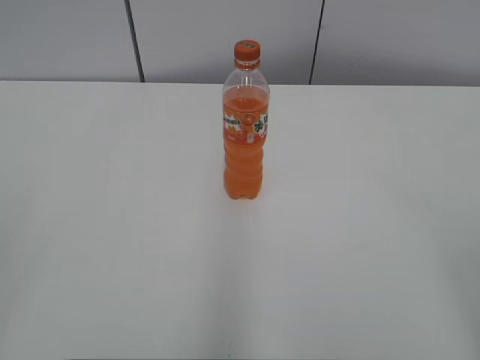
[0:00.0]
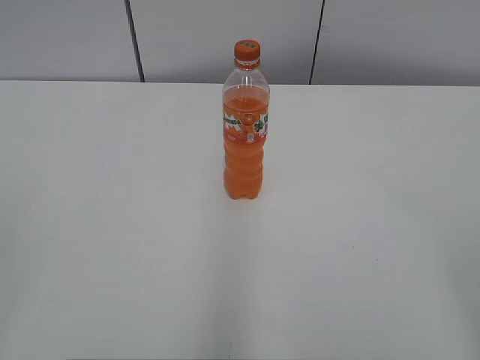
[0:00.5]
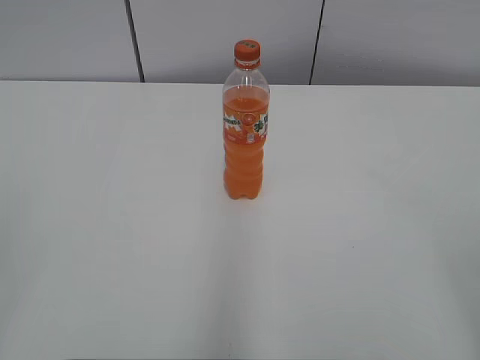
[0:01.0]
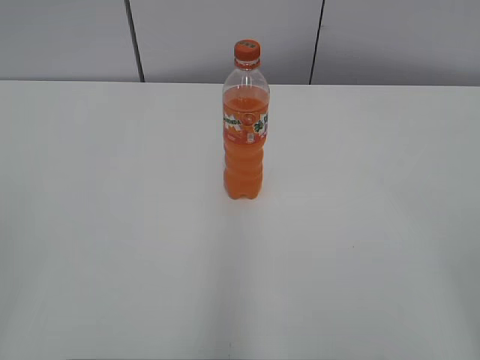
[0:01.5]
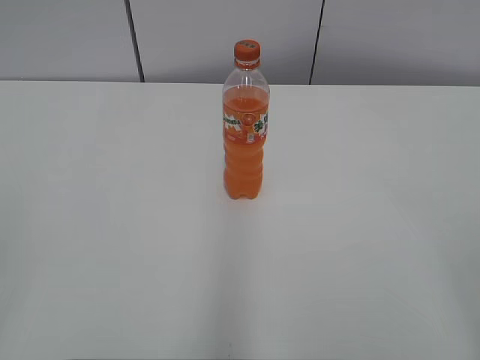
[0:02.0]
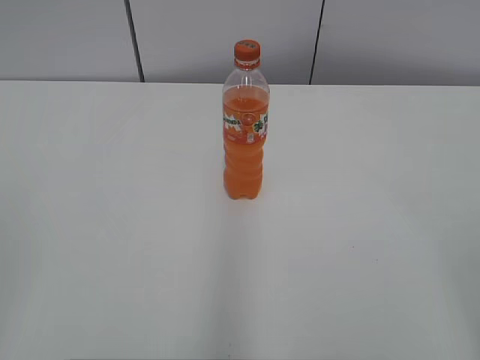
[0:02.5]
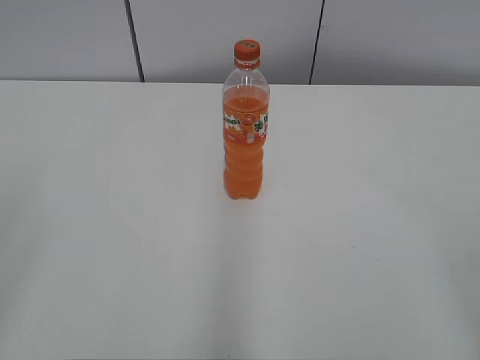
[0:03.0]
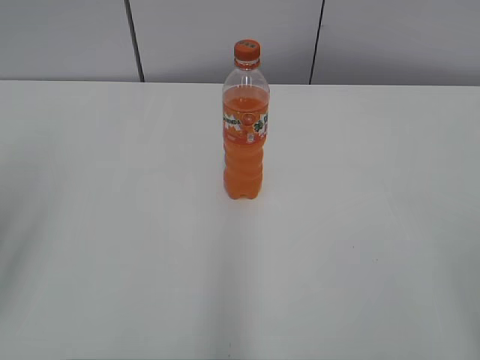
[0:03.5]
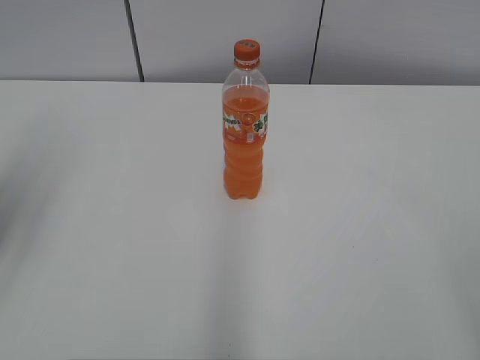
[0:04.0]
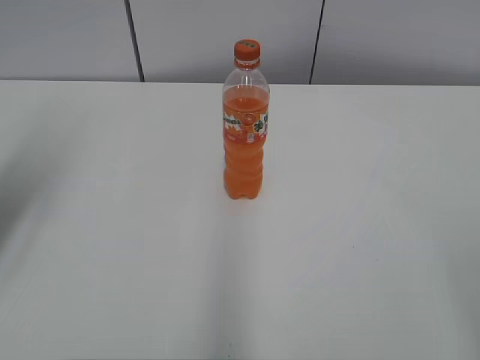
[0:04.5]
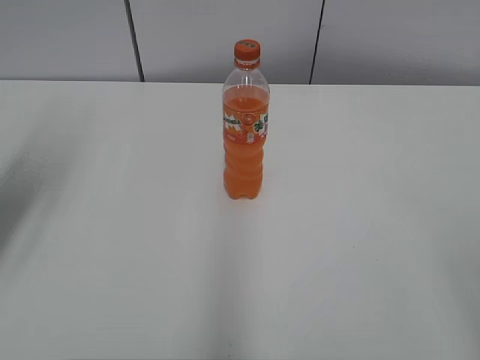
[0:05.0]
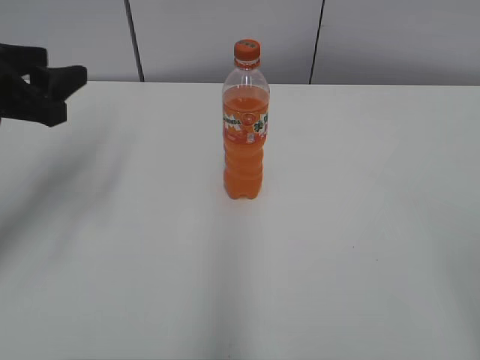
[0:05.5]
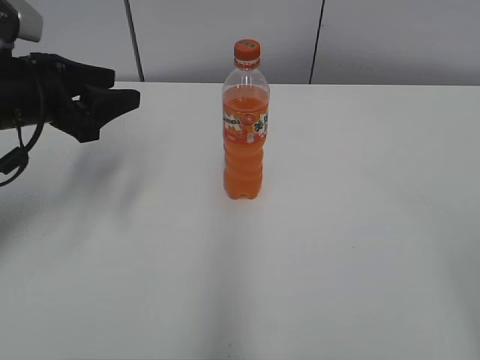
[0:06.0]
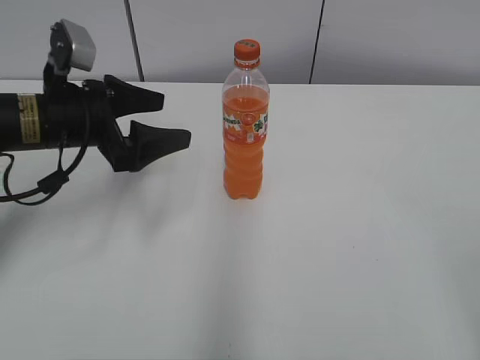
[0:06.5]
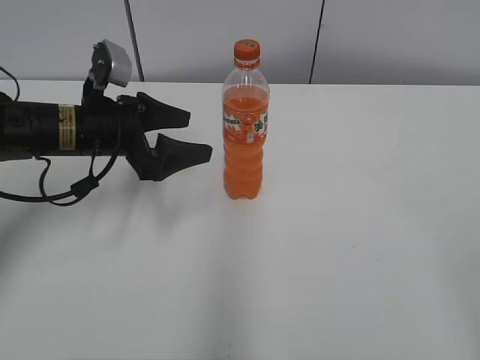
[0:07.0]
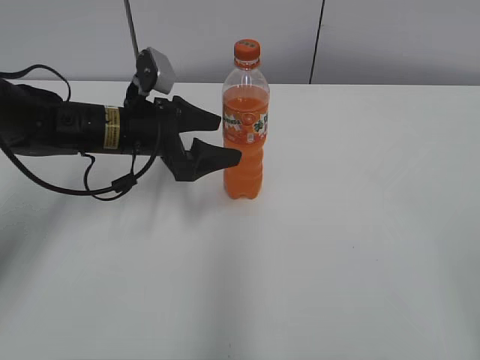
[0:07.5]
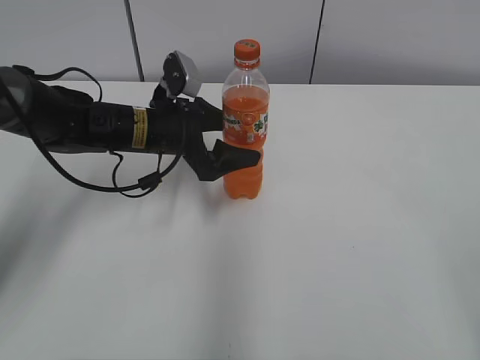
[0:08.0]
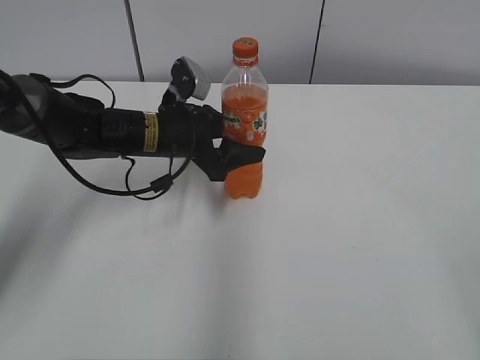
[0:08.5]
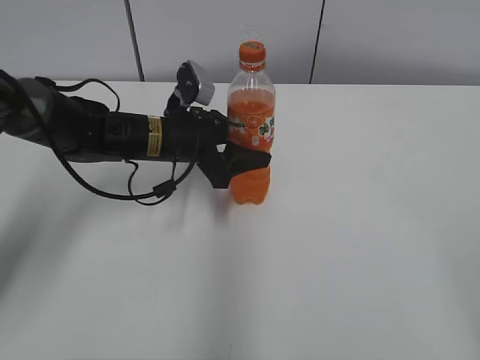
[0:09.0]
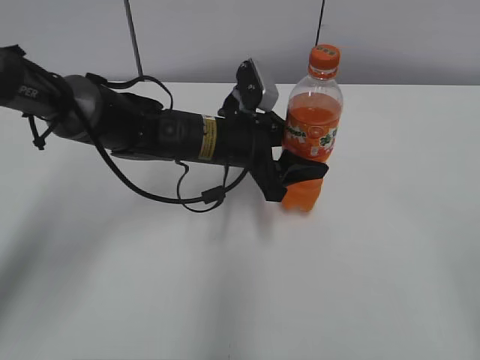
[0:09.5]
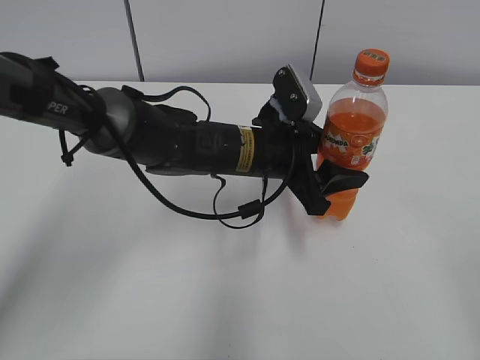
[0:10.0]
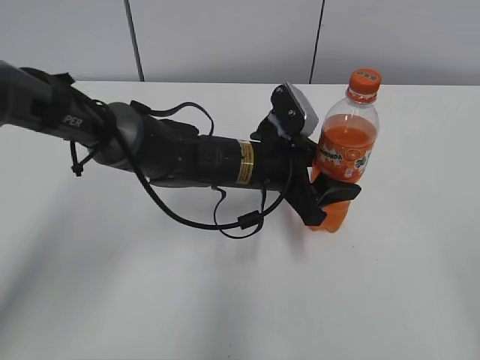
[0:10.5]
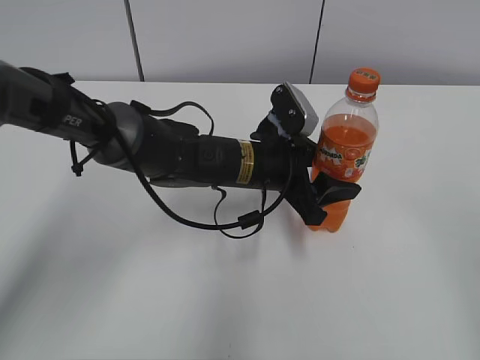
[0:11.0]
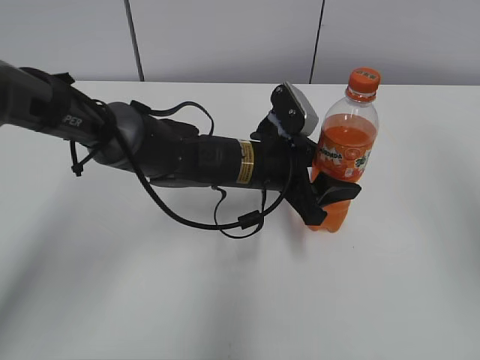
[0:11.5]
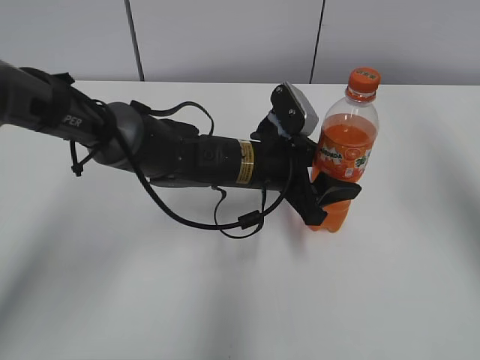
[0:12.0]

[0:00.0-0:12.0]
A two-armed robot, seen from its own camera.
Step, 0:00.0 to 0:08.5: Grab the Mirinda with the left hand.
Step, 0:09.0 to 0:10.5: Move the Mirinda from left to right.
0:02.0 to 0:04.0: The left gripper is displaced forward by roughly 20 cm, and opens its fingers.
0:04.0 to 0:06.0: The left gripper goes approximately 20 cm forward, downward and to the right.
0:06.0 to 0:08.0: The left gripper goes some 15 cm to the right, downward and forward, and opens up.
0:08.0 to 0:10.0: The left gripper heads to the right, covering about 15 cm, and closes up.
0:10.0 to 0:12.0: The right gripper is displaced forward and upward by roughly 30 cm.

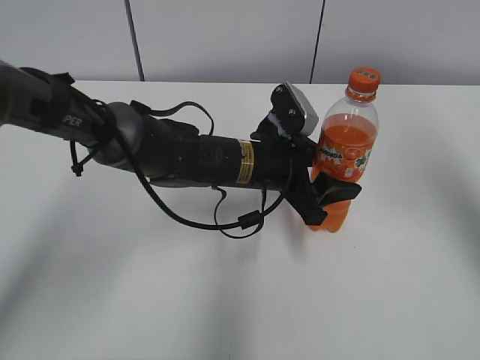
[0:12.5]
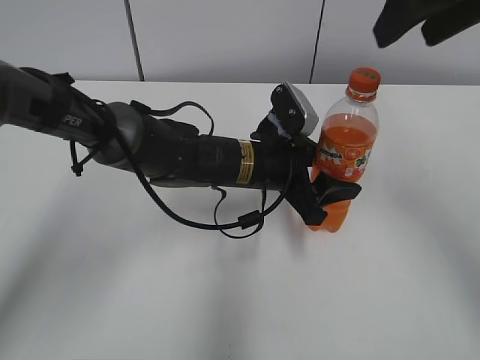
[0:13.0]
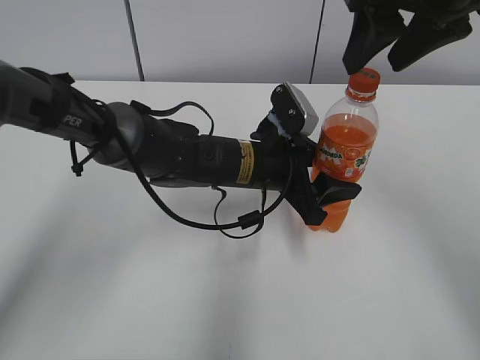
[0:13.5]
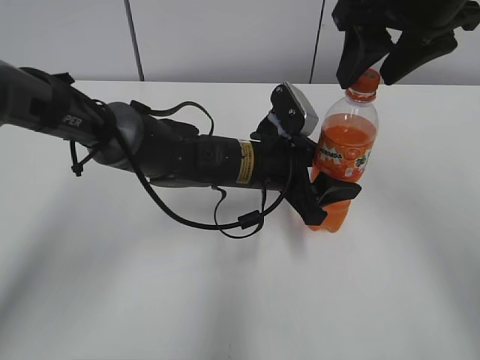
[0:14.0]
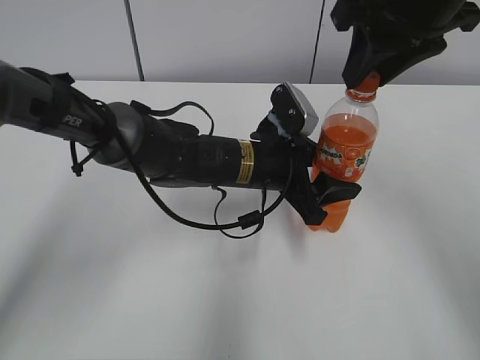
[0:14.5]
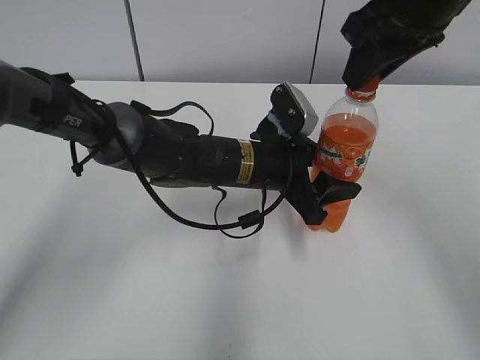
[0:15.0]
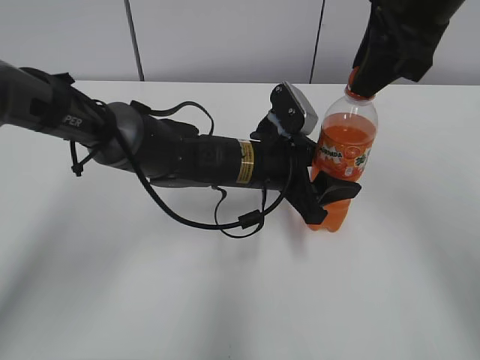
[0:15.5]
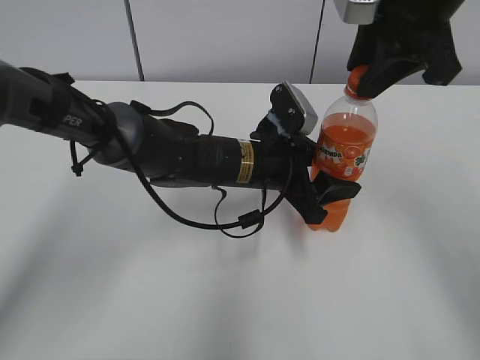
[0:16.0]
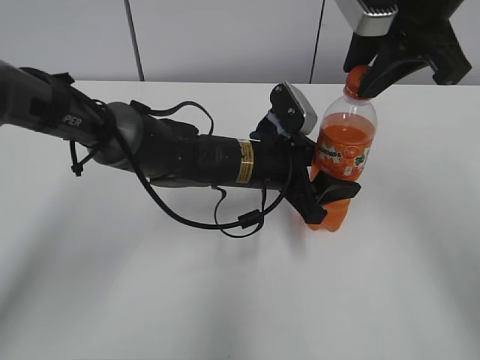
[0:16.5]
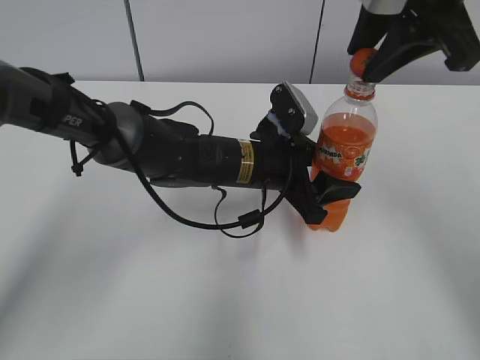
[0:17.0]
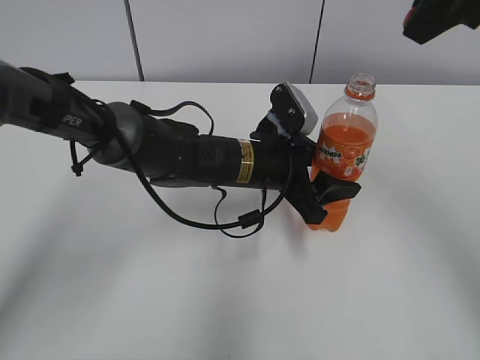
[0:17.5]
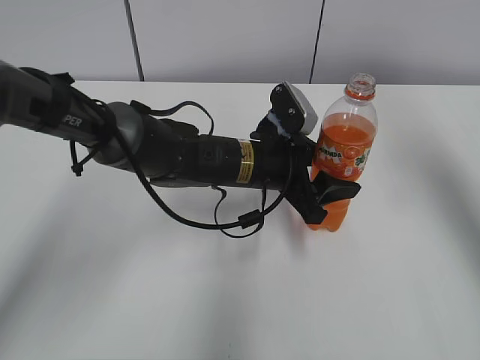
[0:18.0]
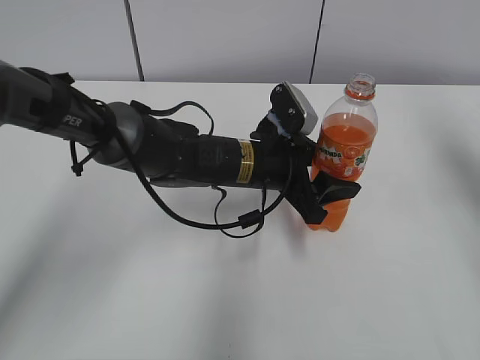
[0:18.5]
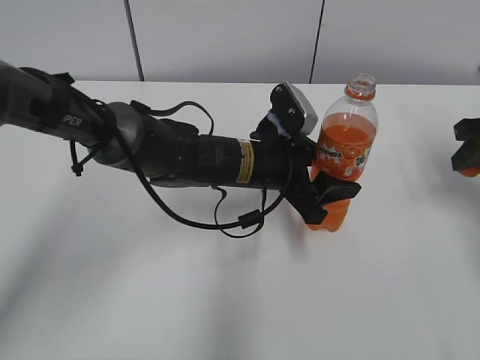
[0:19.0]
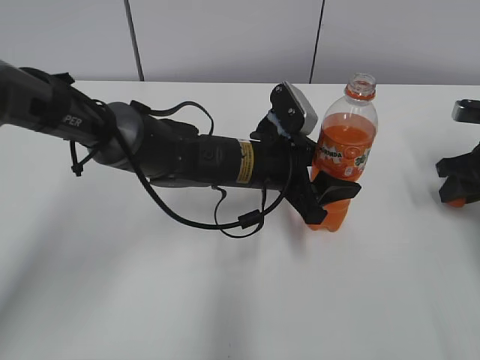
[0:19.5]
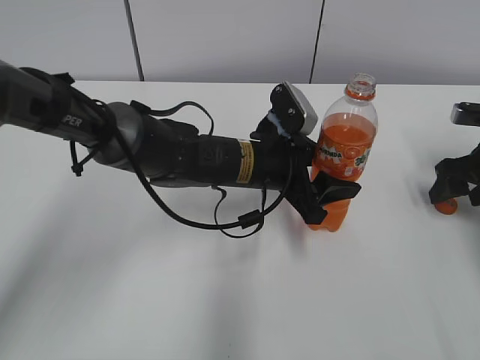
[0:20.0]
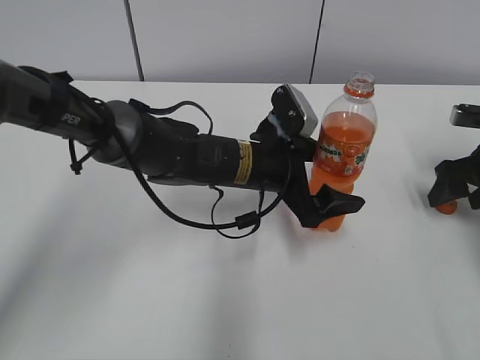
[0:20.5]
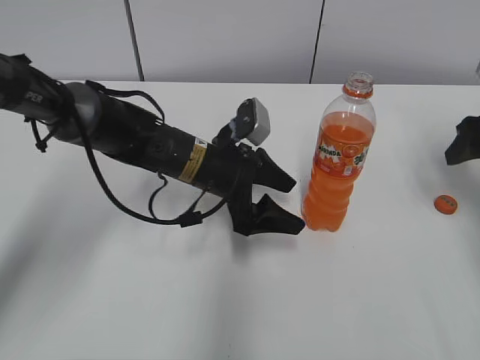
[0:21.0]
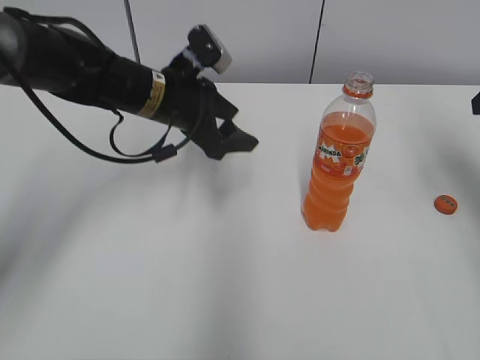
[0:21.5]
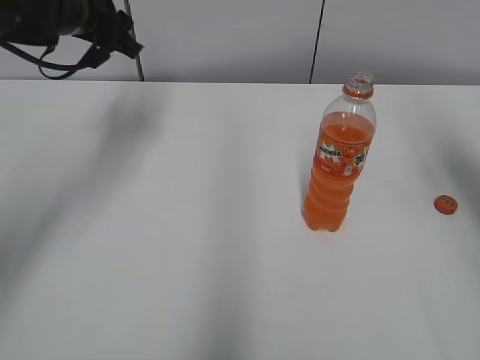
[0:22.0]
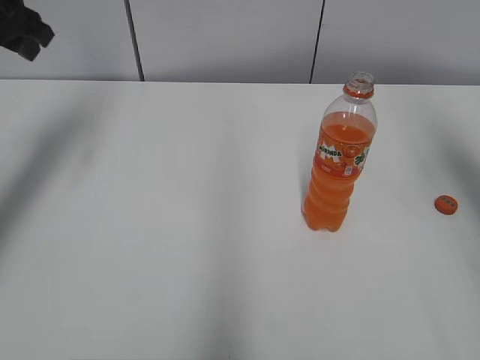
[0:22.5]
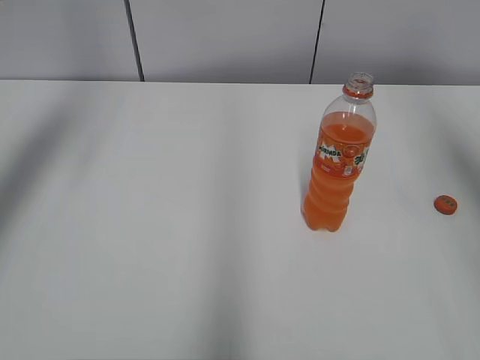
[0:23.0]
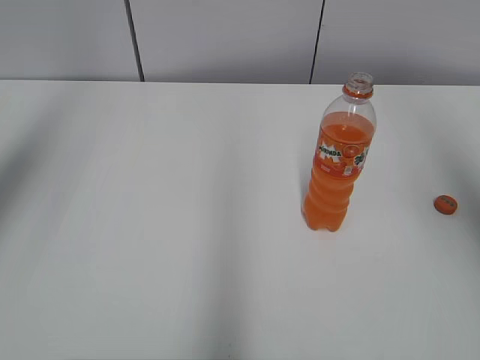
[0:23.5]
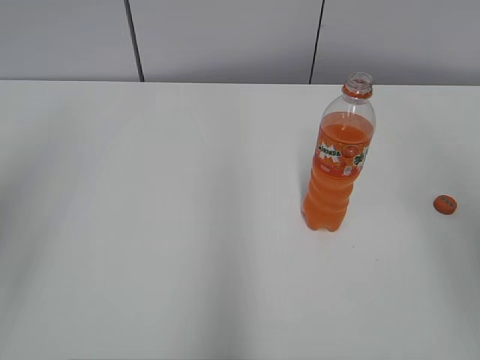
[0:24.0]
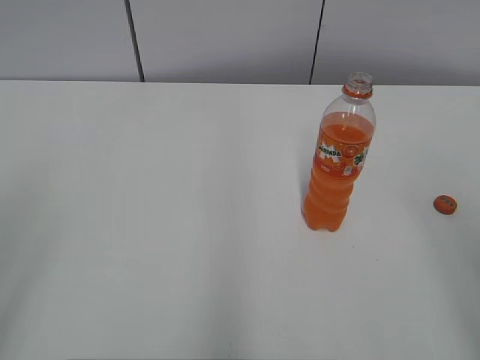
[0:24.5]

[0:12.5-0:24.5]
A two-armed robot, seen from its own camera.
Step, 0:17.0 to 0:19.5: Place the bottle cap on the right.
0:12.5 to 0:14.5: The right gripper heads to the left, downward and forward, covering approximately 15 cm, and closes.
0:16.5 to 0:18.5: The right gripper shifts about 20 cm to the right.
0:18.5 to 0:20.5: The right gripper moves downward, about 20 cm, and opens. The left gripper opens.
0:20.5 to 0:22.5: The left gripper moves to the left and upward, roughly 35 cm, and closes its fingers, while the right gripper travels upward by some 20 cm.
0:22.5 to 0:24.5: Both grippers move backward, approximately 30 cm.

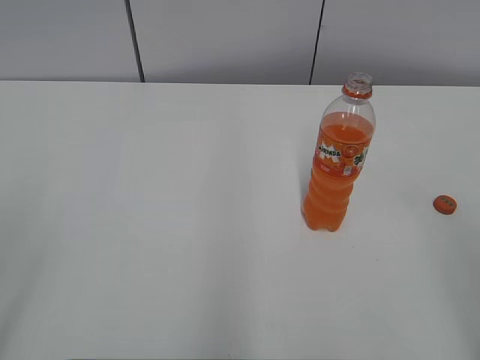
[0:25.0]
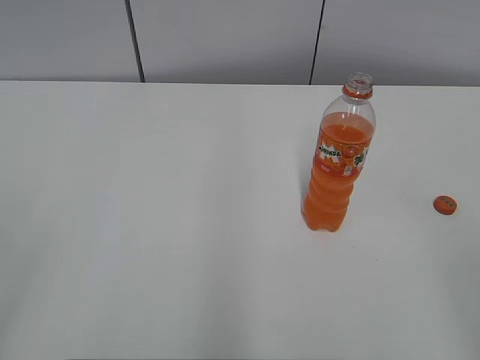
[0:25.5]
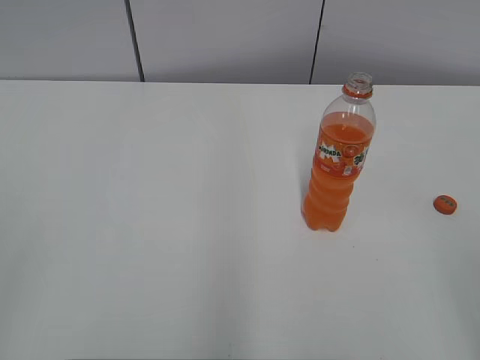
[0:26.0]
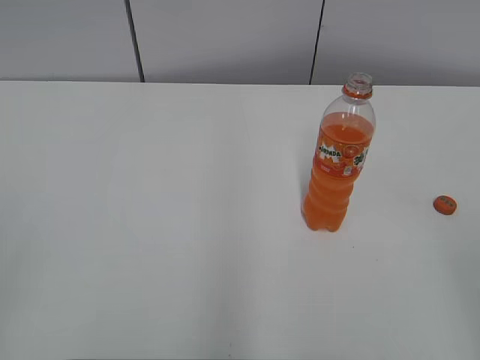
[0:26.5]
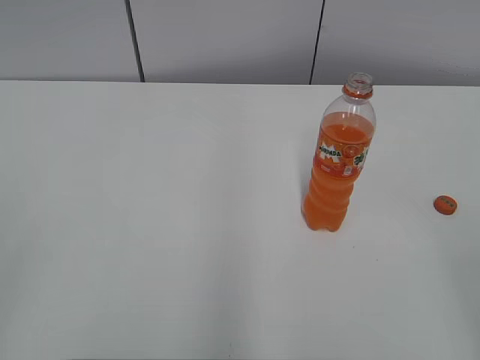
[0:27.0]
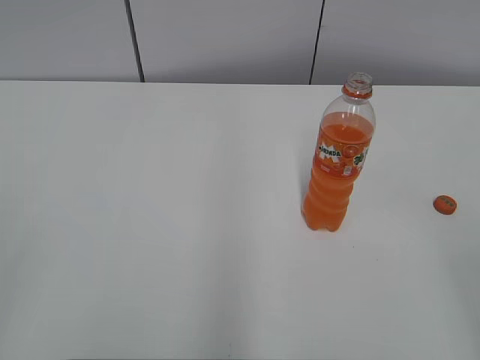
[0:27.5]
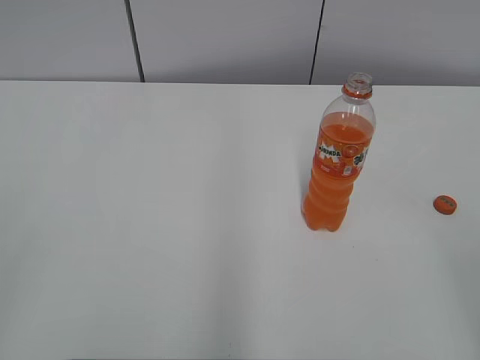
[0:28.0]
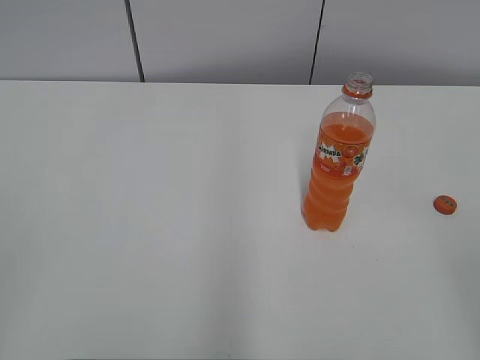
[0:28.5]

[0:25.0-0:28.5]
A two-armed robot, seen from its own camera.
0:27.0 to 0:28.5: Neither gripper changes place.
